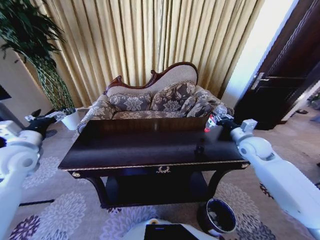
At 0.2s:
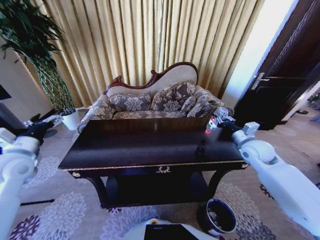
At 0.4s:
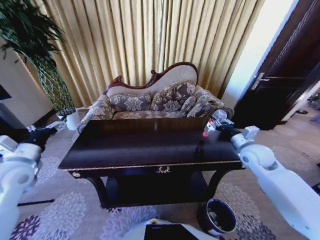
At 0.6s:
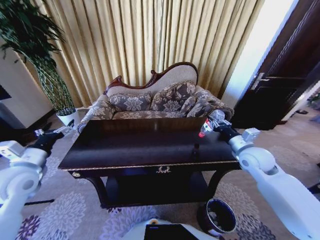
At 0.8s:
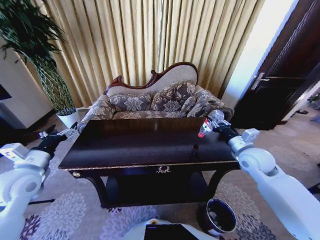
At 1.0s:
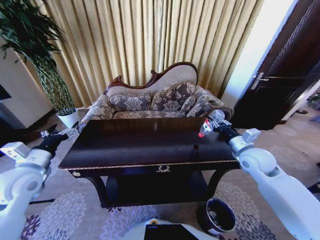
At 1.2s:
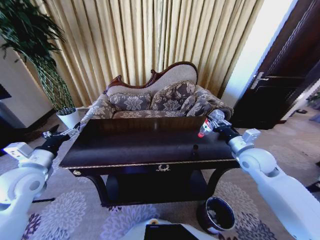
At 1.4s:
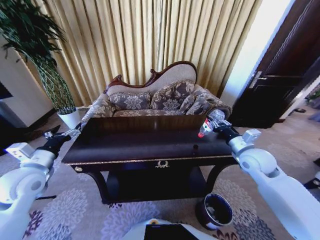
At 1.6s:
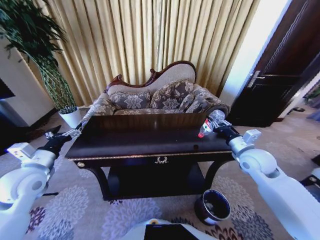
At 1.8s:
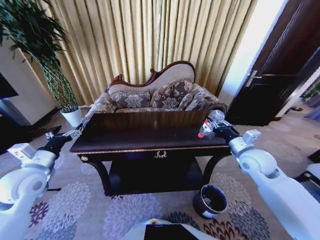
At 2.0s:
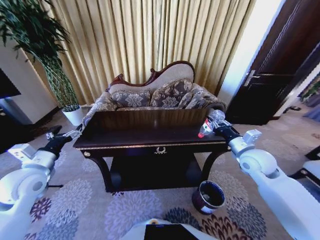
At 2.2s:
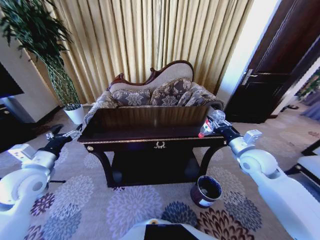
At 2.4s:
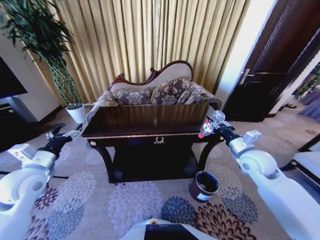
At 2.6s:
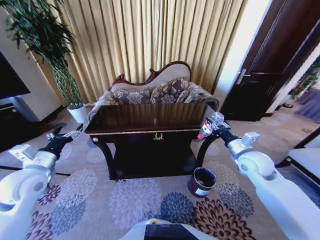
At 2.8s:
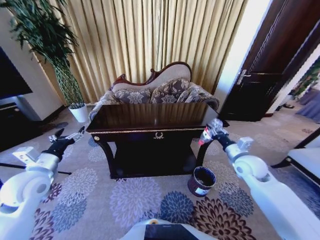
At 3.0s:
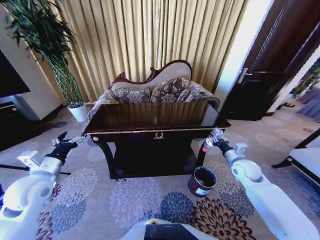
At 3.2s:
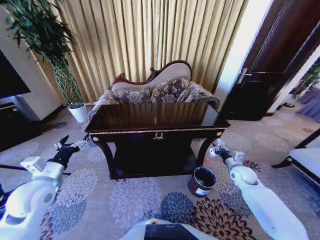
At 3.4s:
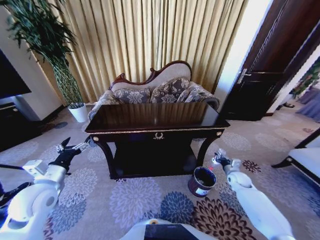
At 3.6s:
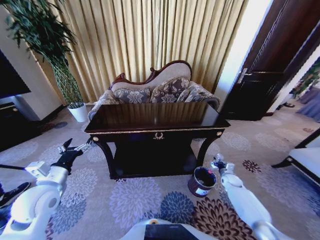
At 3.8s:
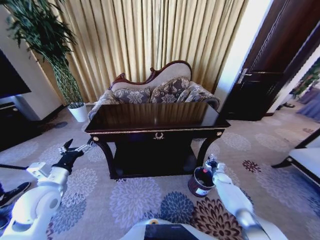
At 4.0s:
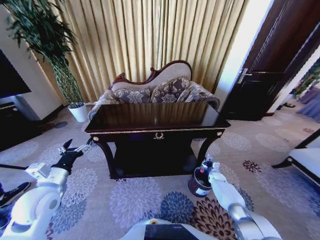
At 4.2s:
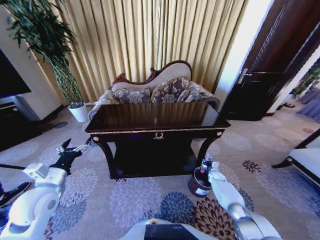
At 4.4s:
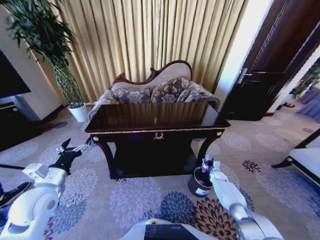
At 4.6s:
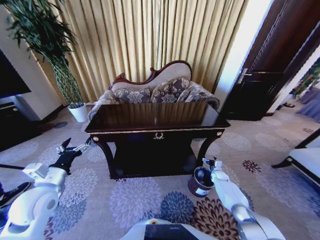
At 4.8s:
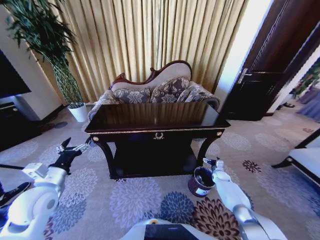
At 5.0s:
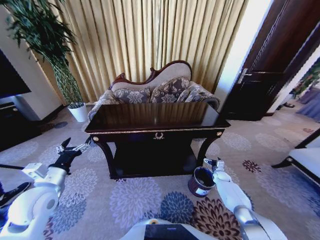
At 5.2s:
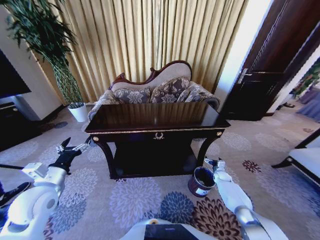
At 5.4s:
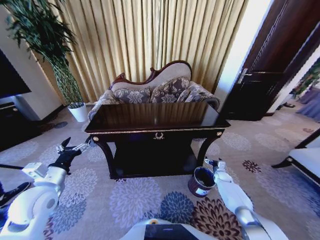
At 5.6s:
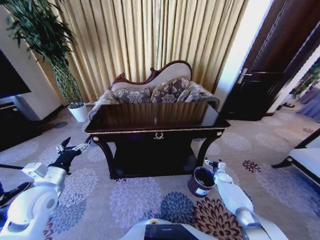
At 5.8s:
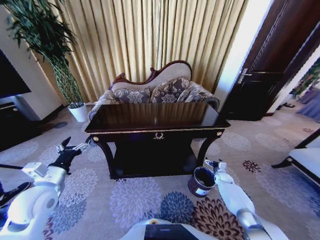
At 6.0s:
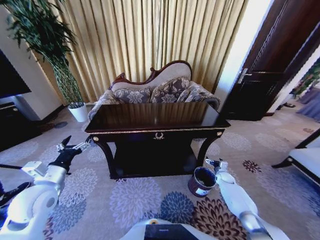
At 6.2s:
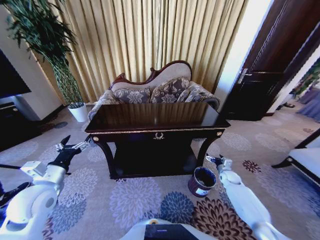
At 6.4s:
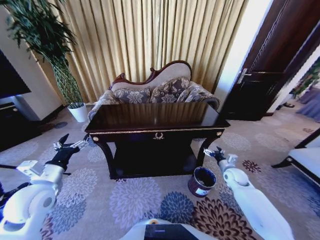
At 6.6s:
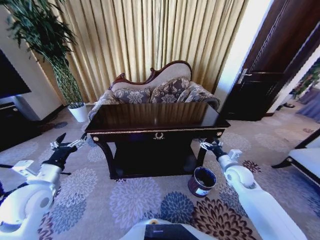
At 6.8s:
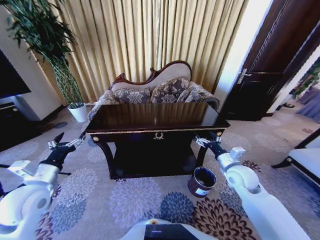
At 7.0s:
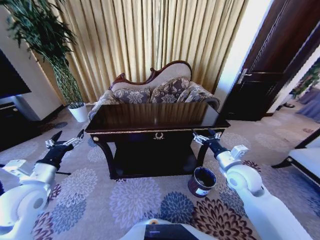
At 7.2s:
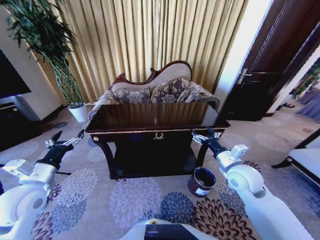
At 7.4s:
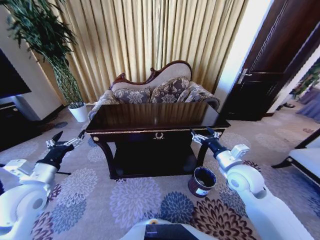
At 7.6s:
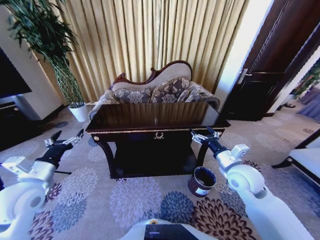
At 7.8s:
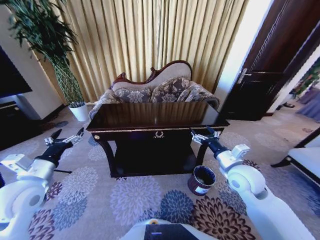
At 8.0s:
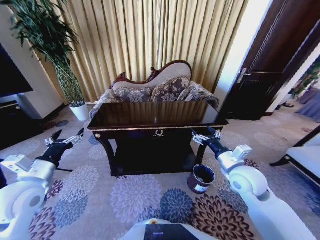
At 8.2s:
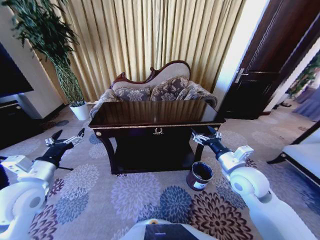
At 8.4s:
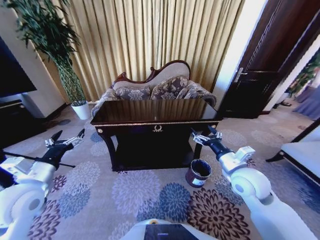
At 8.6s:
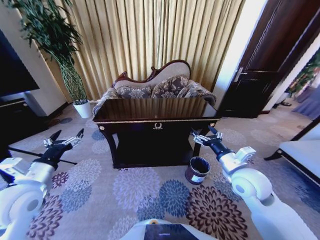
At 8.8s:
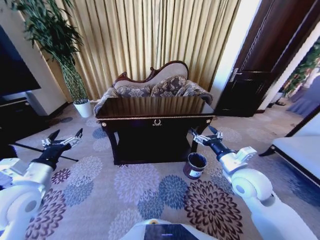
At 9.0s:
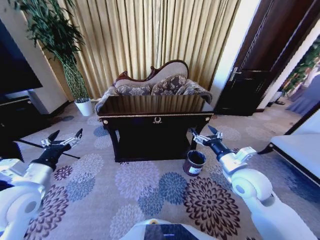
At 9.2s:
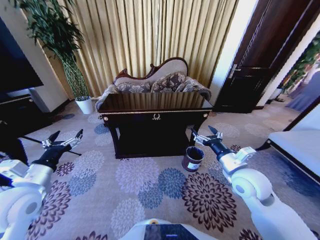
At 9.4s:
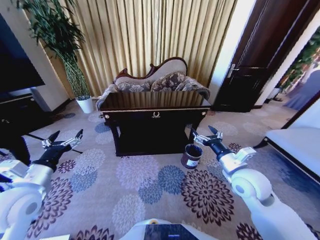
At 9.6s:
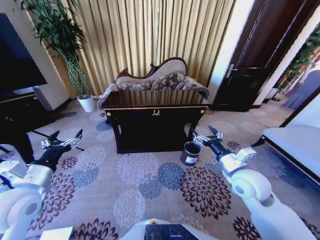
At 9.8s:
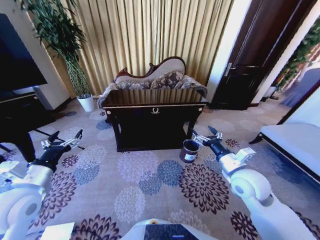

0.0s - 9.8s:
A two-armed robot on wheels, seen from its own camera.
Task of the whole recording: Move to the front of the table and place the trash on the table into the trash bin.
0.0s - 1.4s: The left gripper moves about 5 cm; the right gripper moves backward, approximately 5 cm.
1.4s - 2.8s: The right gripper ends up some 5 cm from where it was.
2.8s - 4.2s: The left gripper ends up about 5 cm from where it was. Meanwhile the right gripper moves downward, approximately 30 cm.
4.2s - 5.6s: The right gripper opens up.
5.6s - 7.0s: The right gripper goes approximately 35 cm upward and to the left.

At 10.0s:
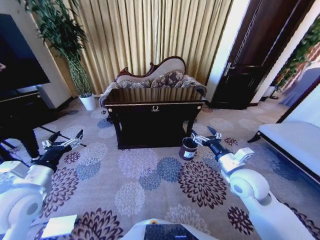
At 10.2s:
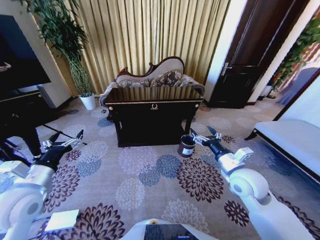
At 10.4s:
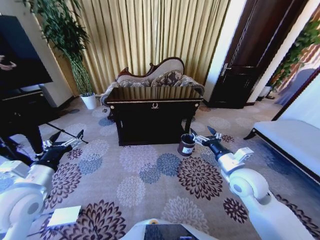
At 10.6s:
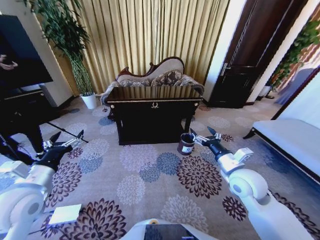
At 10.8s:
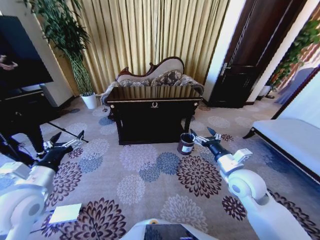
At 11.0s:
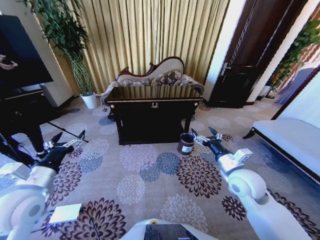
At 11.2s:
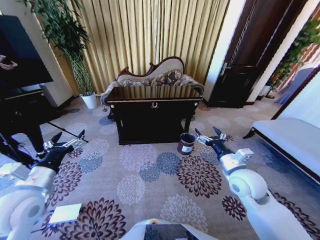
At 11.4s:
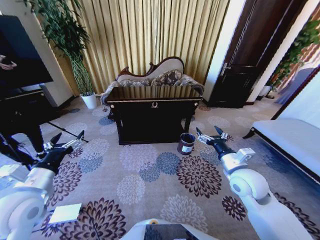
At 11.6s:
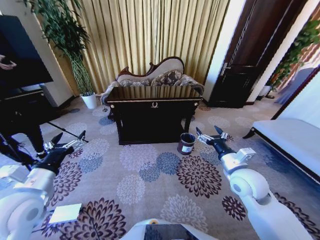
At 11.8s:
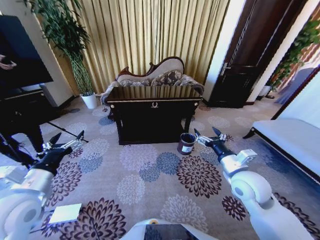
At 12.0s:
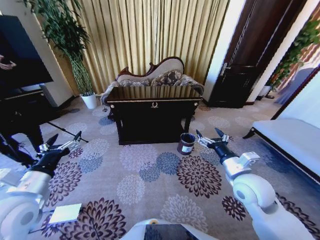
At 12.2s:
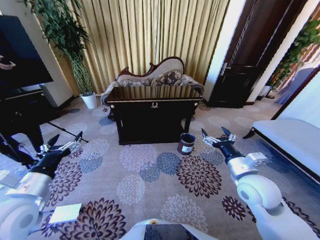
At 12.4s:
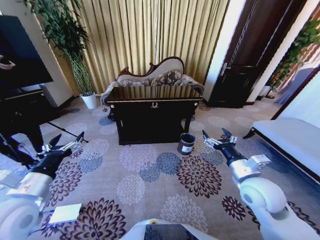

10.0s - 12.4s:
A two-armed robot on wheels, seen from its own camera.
Task of the whole recording: Move to the front of the table and place the trash on the table into the trash bin.
11.2s - 12.4s: The grippers move only a little.
